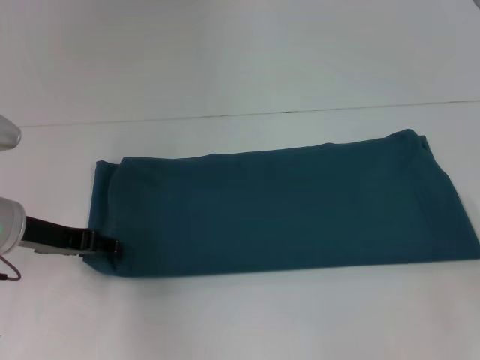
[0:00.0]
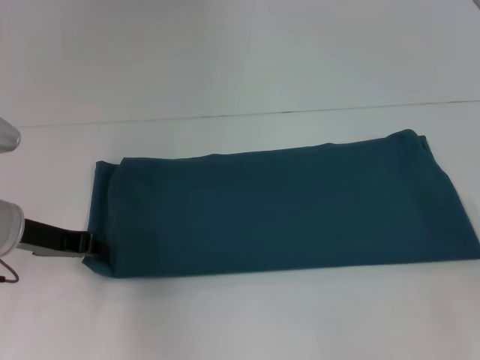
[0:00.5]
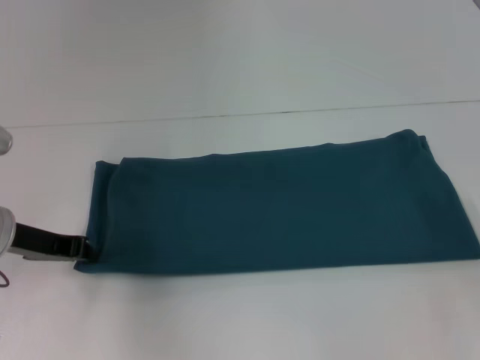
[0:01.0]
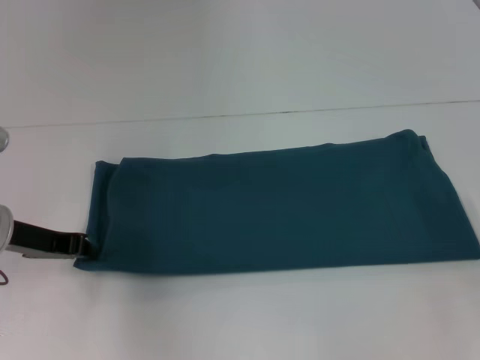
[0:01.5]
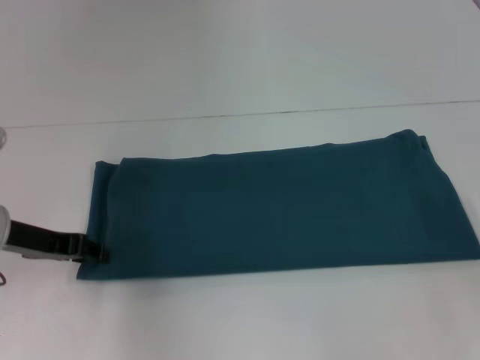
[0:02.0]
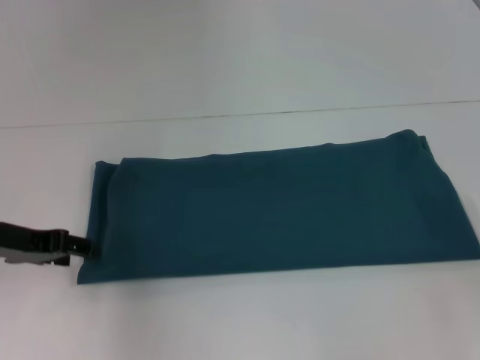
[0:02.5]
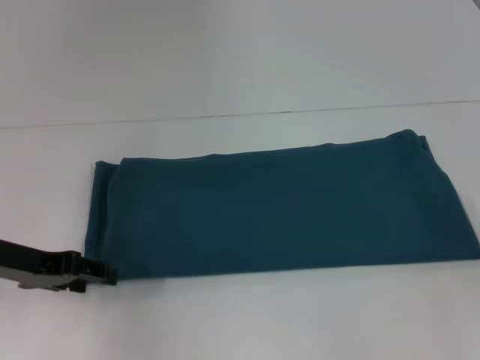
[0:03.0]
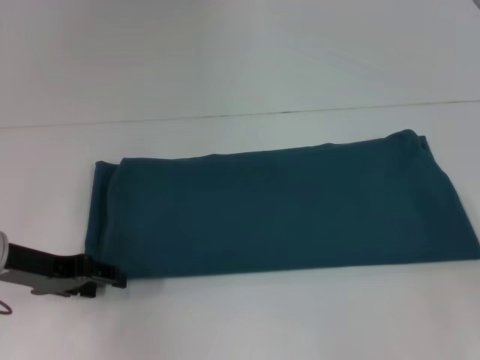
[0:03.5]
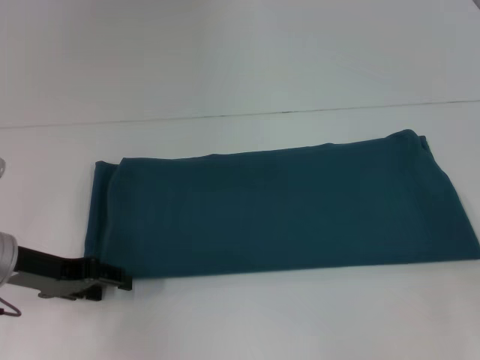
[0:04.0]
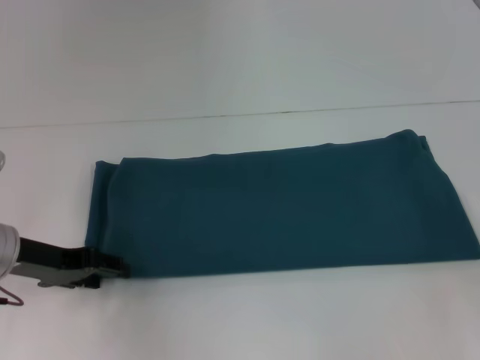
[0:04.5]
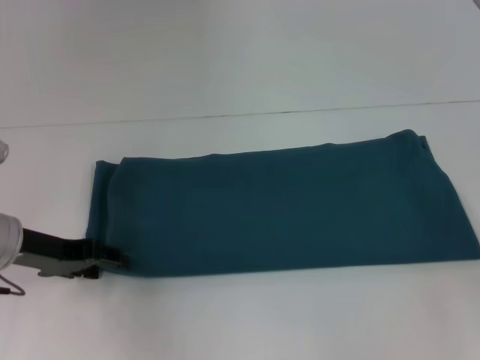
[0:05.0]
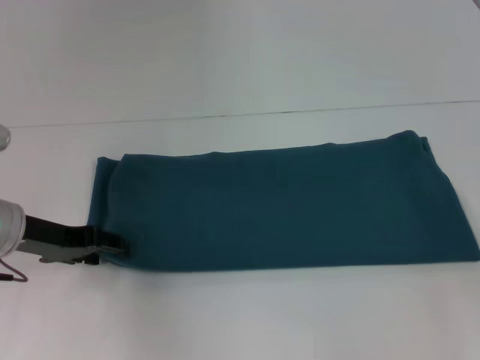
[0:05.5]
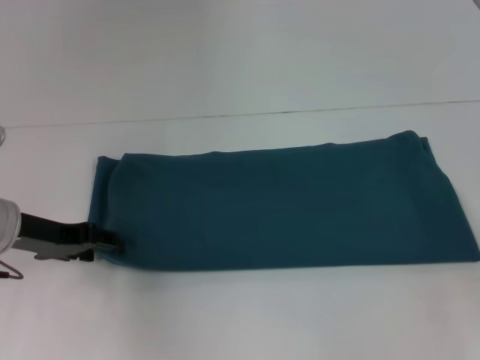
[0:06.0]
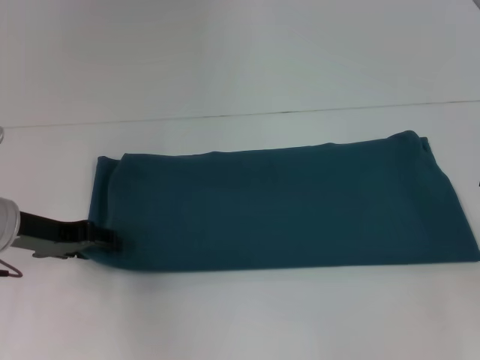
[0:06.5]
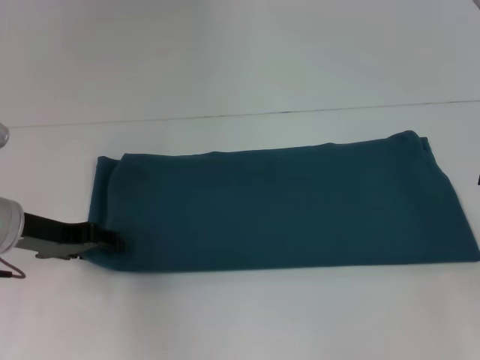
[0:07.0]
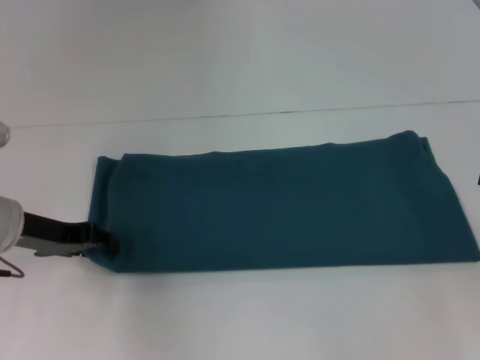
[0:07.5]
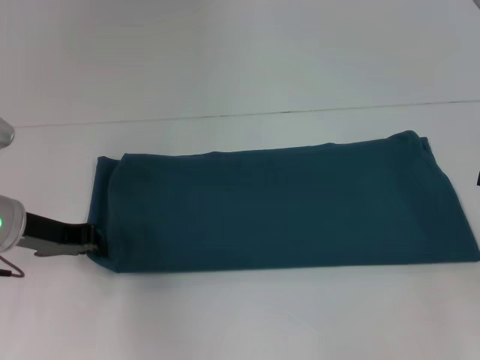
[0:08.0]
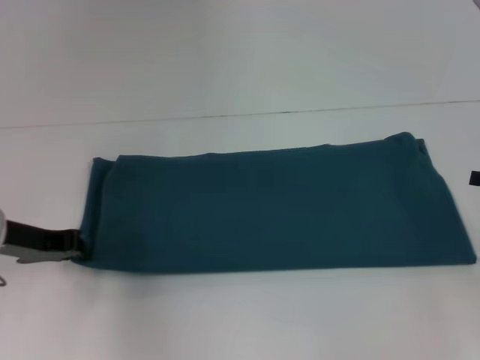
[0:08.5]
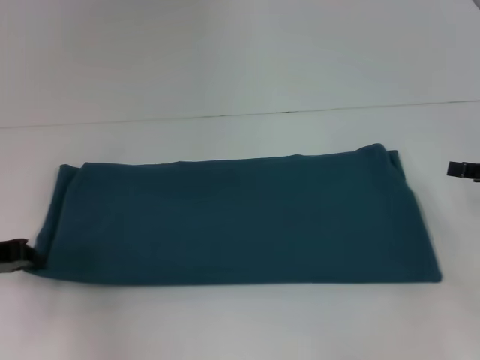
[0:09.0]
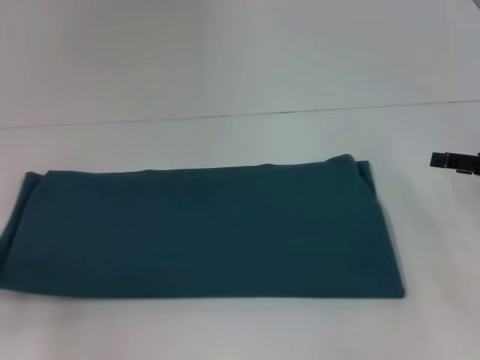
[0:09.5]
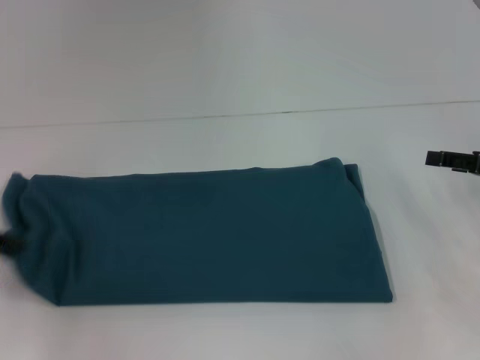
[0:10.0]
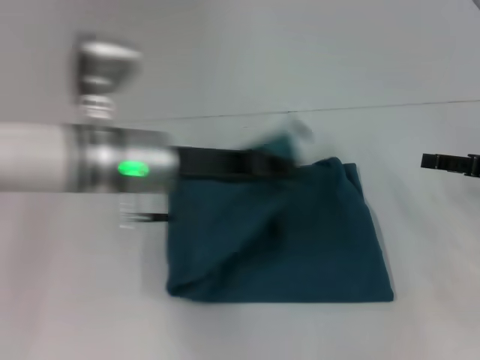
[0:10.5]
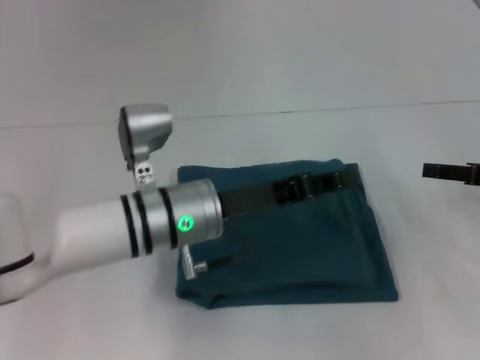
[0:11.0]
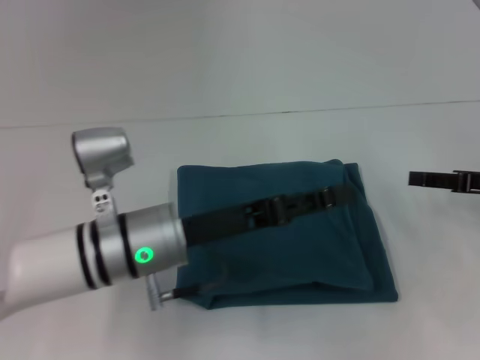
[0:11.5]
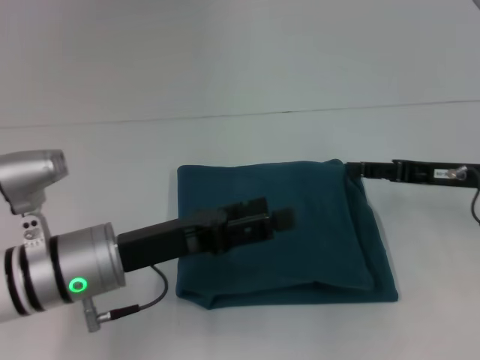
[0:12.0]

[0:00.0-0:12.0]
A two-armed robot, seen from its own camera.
Step, 0:00.0 to 0:11.5: Fold the clothes to the left.
0:00.0 to 0:02.0: The left gripper closes up.
0:02.0 to 0:04.0: The left gripper opens up.
0:04.0 to 0:06.0: The grippers make only small movements.
0:06.0 to 0:08.0: The left gripper closes its fingers.
0:08.0 to 0:10.0: The left gripper travels to the left and backward by approximately 10 cm, while the right gripper ends up roughly 5 cm from where it was.
0:10.0 to 0:12.0: The left gripper heads to the right, covering some 20 cm, and opens up. Meanwhile the right gripper goes about 5 cm to the left.

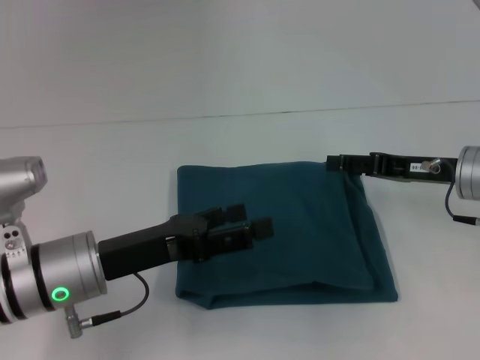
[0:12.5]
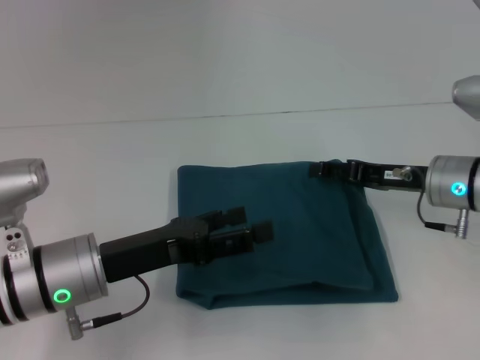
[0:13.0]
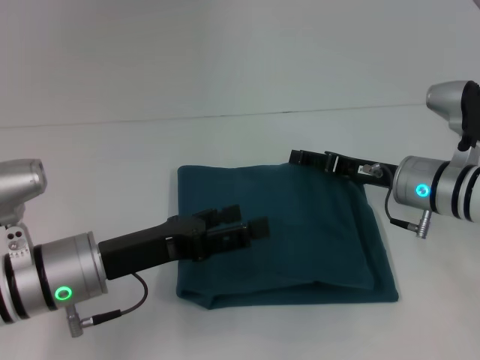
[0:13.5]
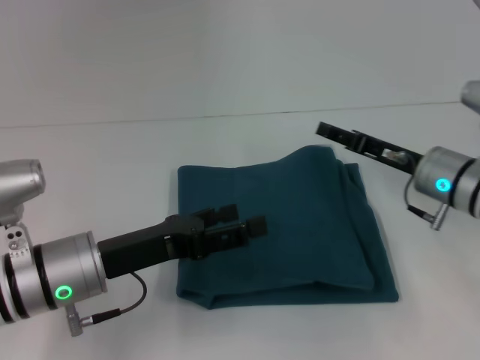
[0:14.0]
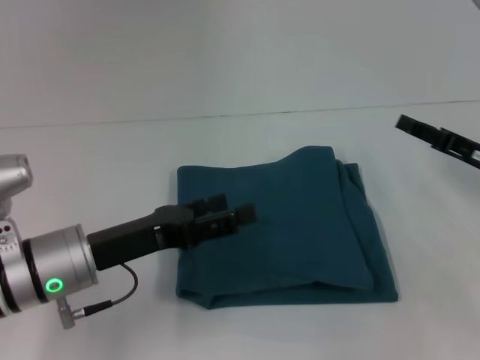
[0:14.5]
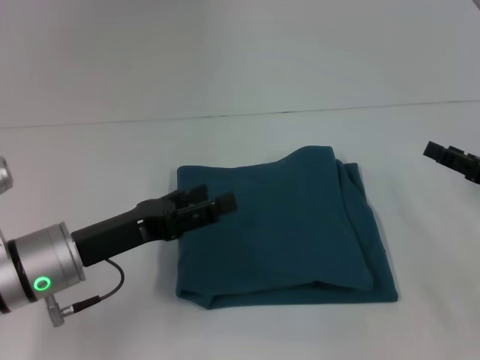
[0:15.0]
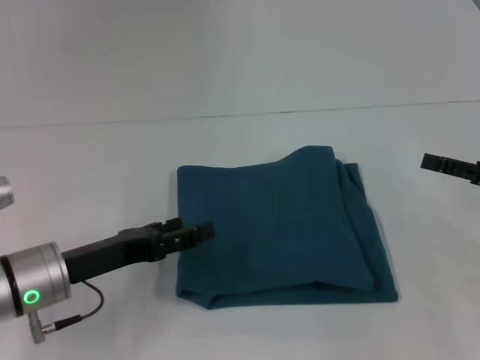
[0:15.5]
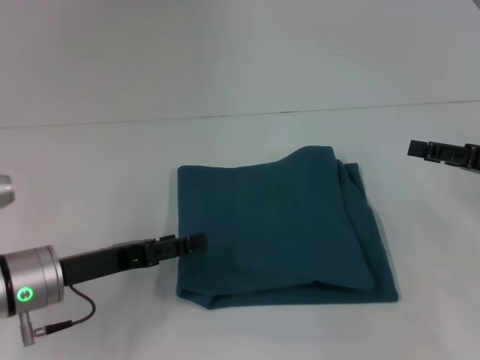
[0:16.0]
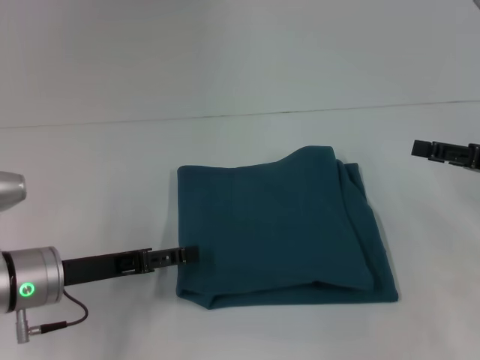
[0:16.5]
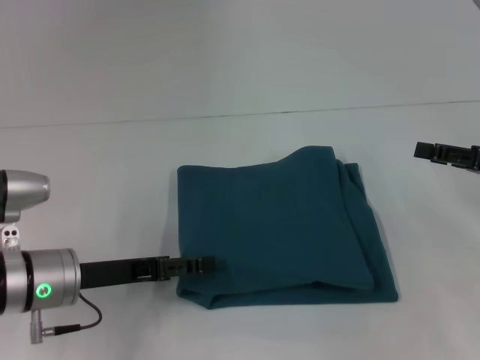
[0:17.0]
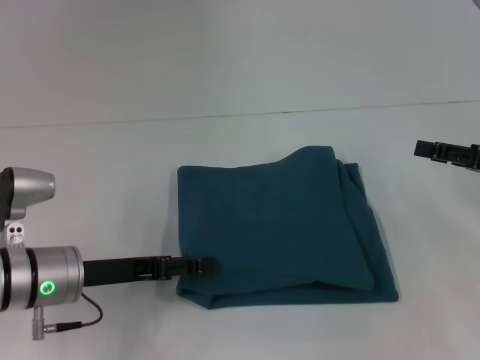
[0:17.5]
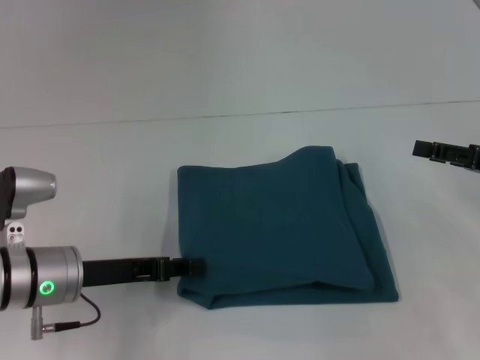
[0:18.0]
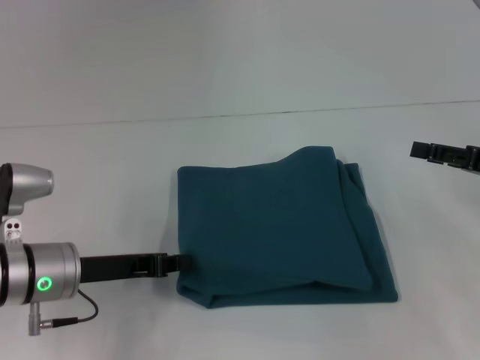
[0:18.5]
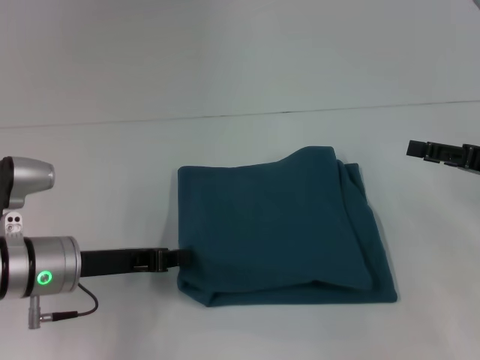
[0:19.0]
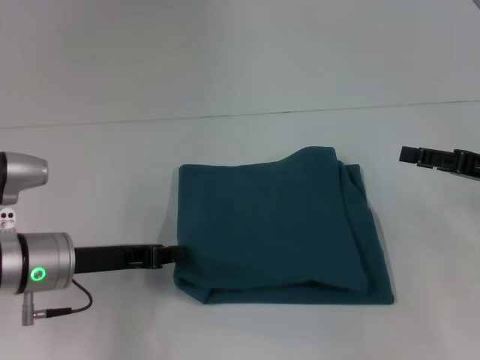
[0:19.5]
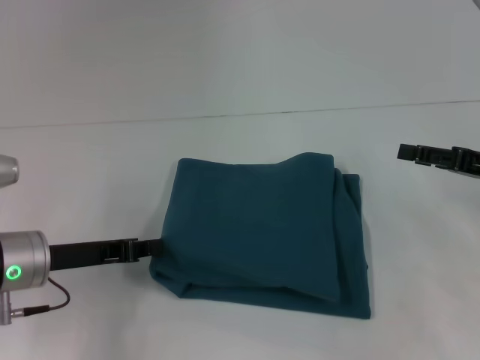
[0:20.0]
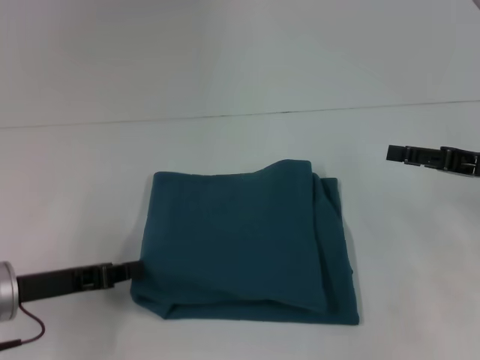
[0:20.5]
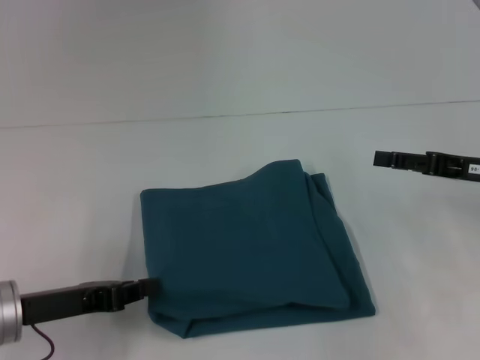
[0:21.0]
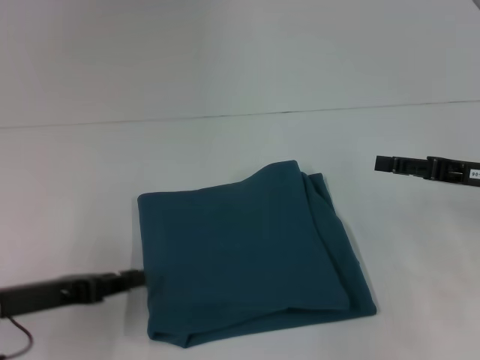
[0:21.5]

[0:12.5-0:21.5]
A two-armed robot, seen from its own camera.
0:12.5 to 0:14.5: The right gripper goes some 5 cm to the right.
0:14.5 to 0:17.0: The right gripper changes place by some 5 cm.
0:17.0 to 0:19.5: The left gripper closes its fingers.
0:19.5 to 0:21.5: The left gripper goes approximately 10 cm to the left and backward.

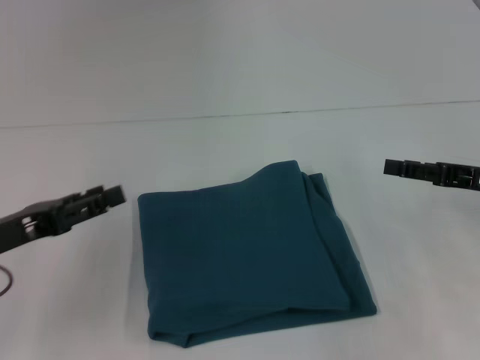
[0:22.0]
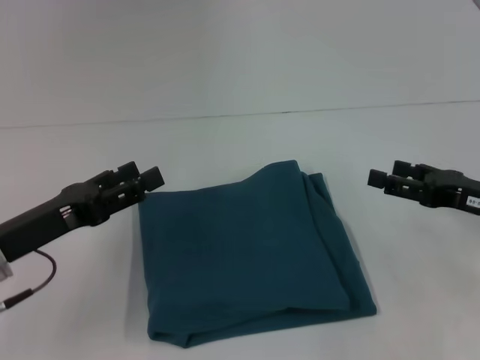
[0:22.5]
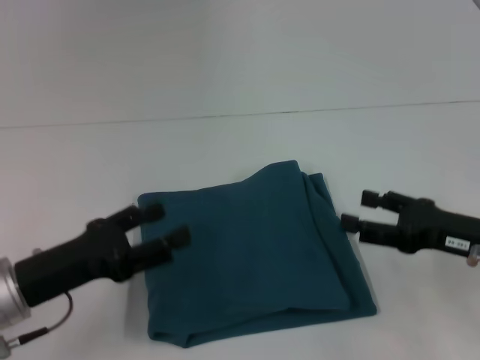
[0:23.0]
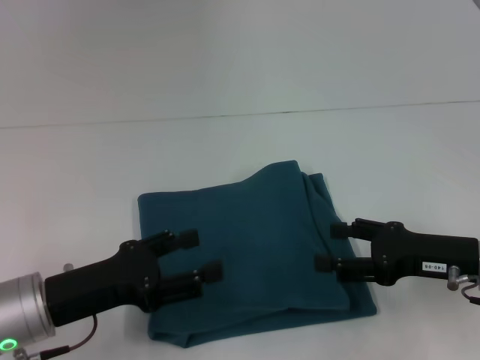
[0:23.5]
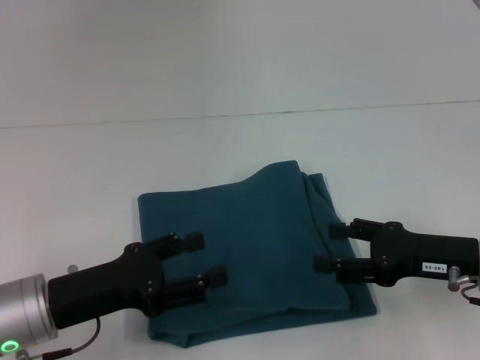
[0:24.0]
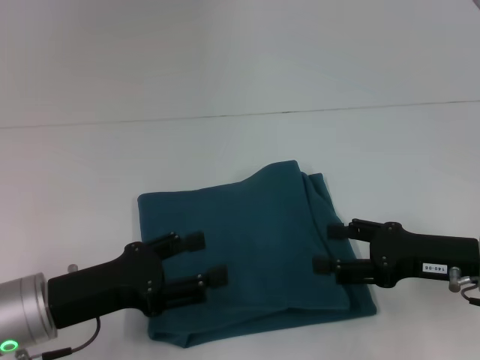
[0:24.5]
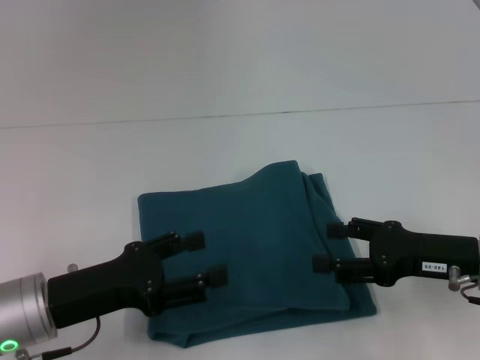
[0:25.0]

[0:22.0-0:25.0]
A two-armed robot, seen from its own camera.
0:22.0 to 0:23.5: The right gripper heads to the left, covering about 5 cm. The left gripper heads to the right, covering roughly 5 cm, and opens up.
0:23.5 to 0:25.0: Neither gripper changes place.

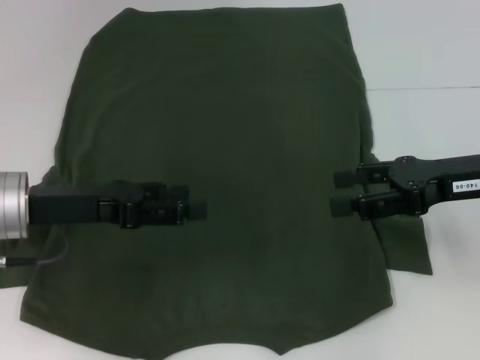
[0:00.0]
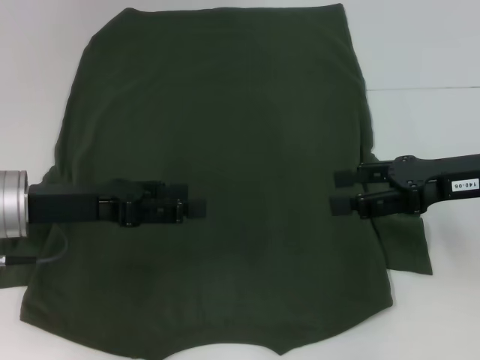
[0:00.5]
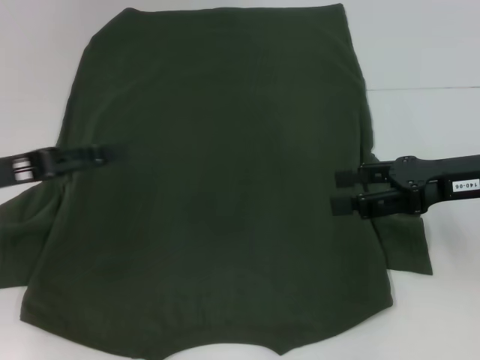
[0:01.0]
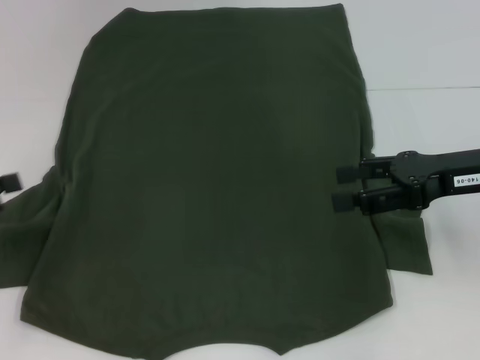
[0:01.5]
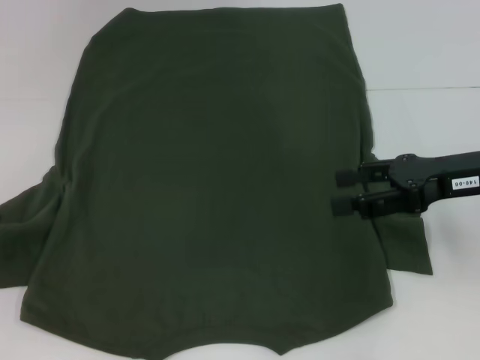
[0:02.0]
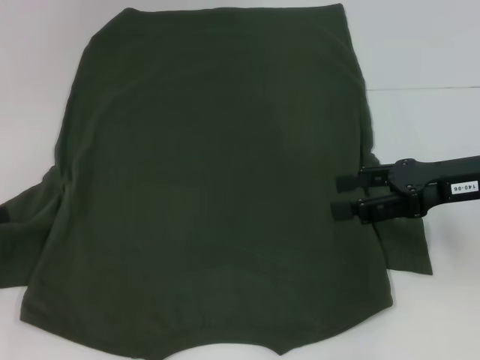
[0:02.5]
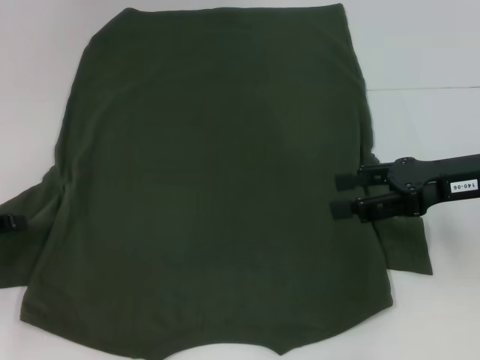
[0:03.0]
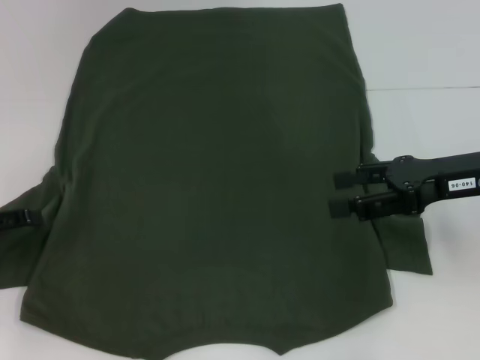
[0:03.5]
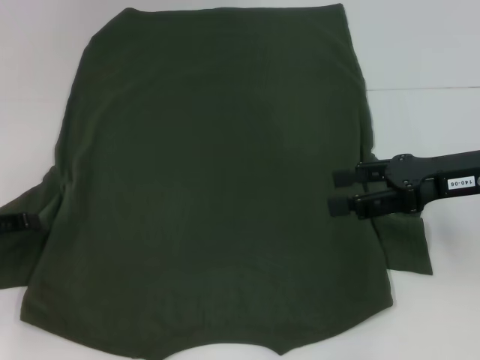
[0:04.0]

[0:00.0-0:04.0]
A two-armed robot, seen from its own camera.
0:00.0 to 0:02.0: The left gripper is displaced to the left by some 15 cm.
